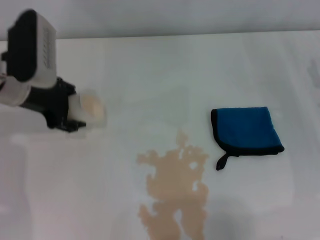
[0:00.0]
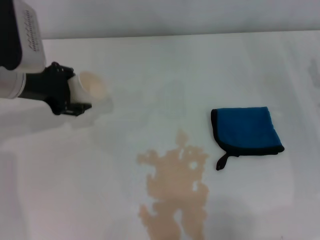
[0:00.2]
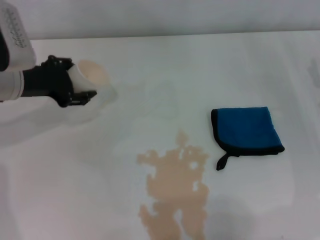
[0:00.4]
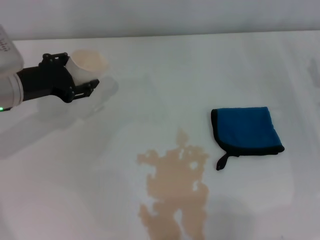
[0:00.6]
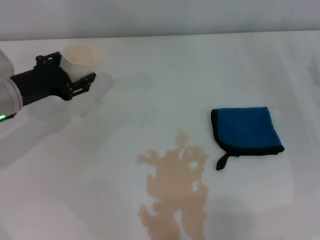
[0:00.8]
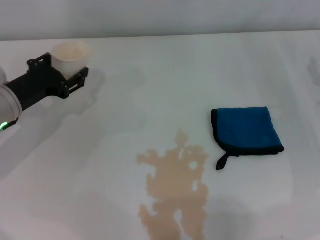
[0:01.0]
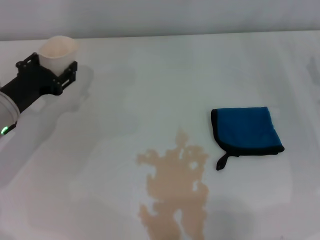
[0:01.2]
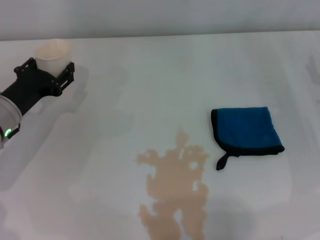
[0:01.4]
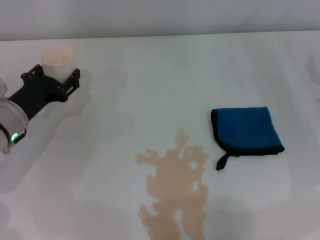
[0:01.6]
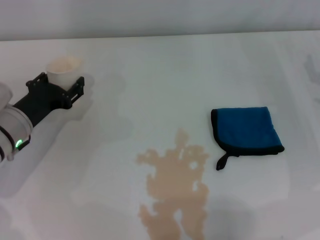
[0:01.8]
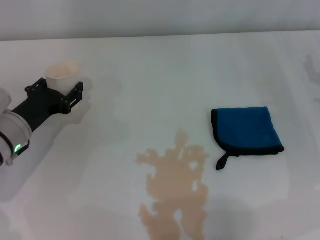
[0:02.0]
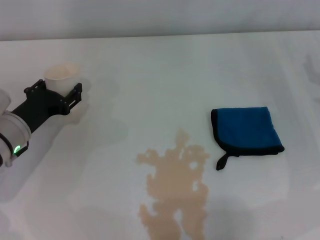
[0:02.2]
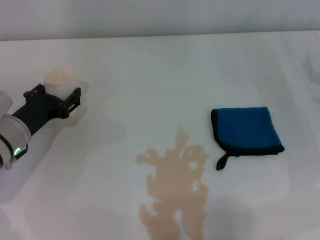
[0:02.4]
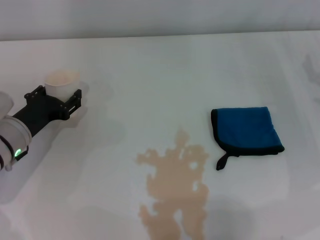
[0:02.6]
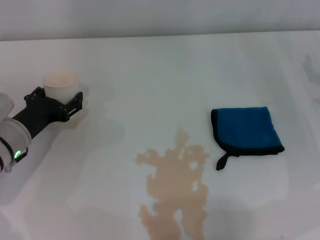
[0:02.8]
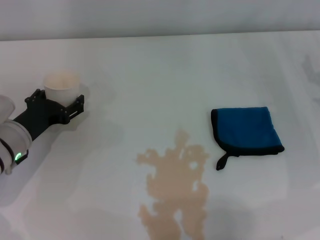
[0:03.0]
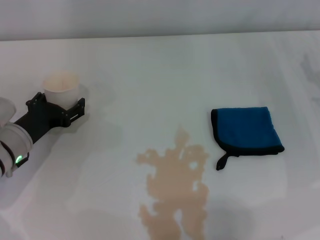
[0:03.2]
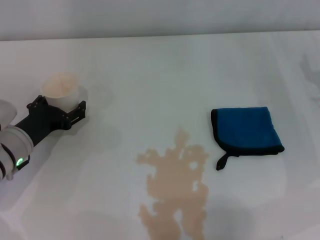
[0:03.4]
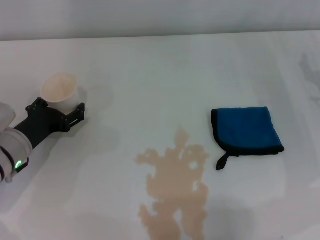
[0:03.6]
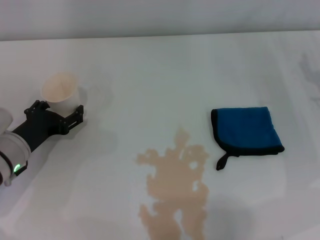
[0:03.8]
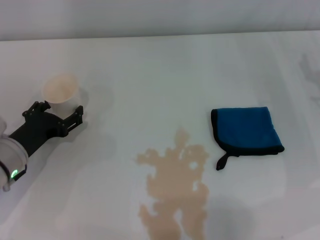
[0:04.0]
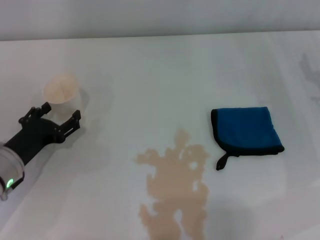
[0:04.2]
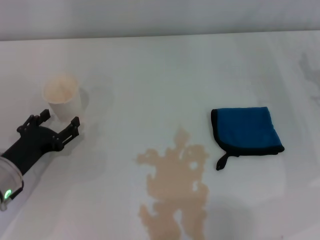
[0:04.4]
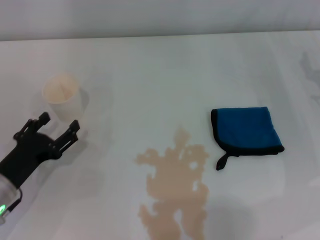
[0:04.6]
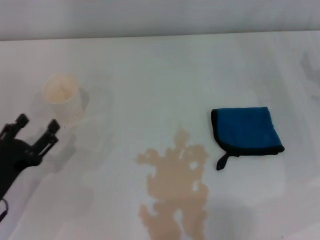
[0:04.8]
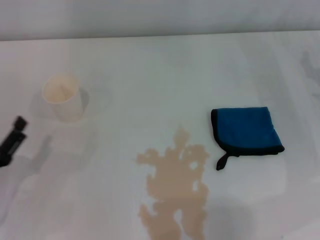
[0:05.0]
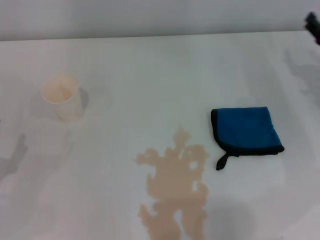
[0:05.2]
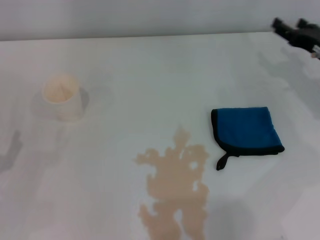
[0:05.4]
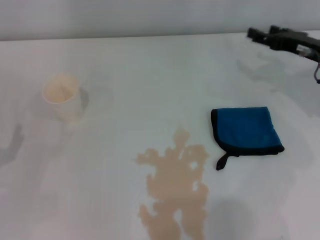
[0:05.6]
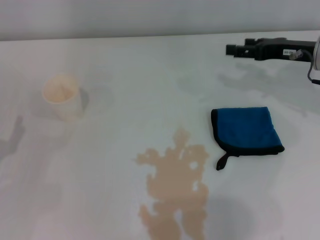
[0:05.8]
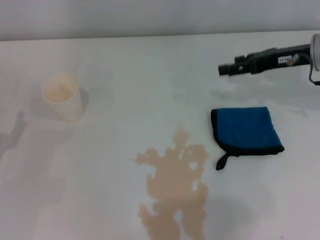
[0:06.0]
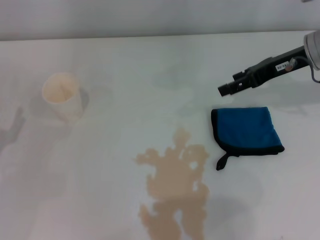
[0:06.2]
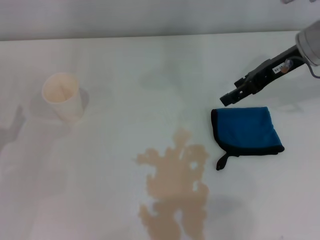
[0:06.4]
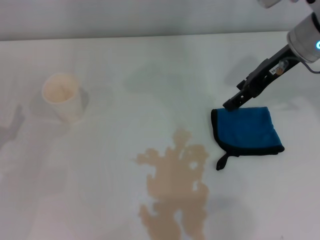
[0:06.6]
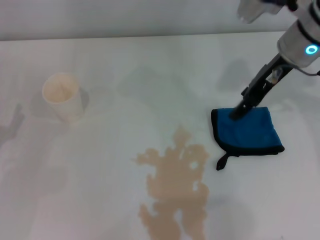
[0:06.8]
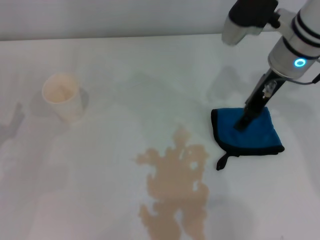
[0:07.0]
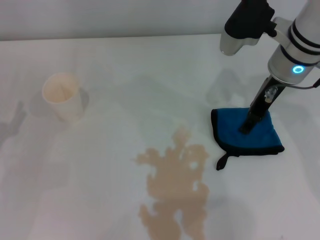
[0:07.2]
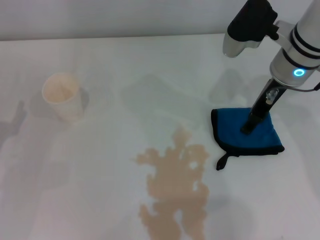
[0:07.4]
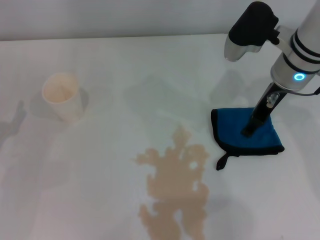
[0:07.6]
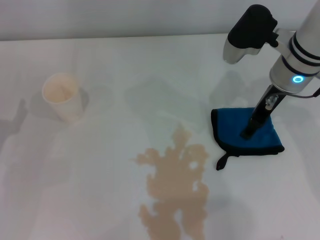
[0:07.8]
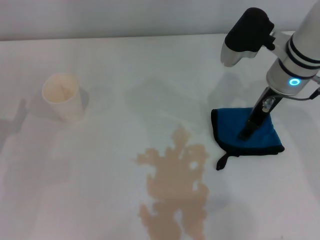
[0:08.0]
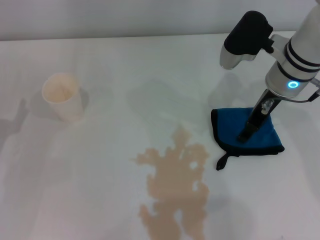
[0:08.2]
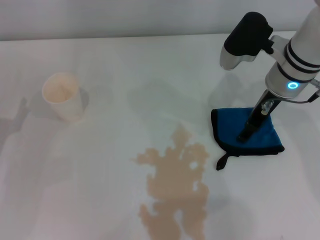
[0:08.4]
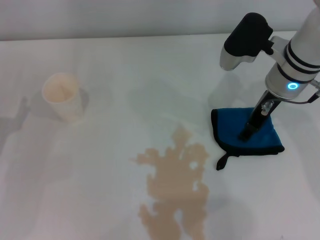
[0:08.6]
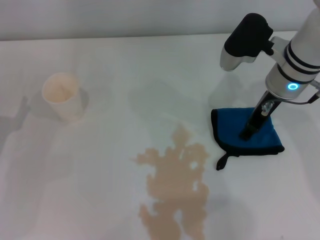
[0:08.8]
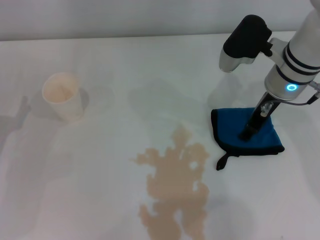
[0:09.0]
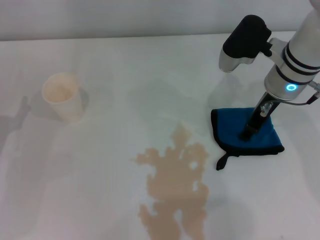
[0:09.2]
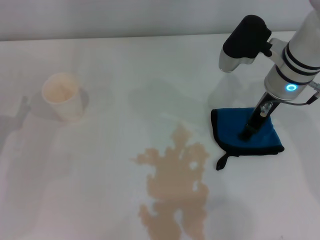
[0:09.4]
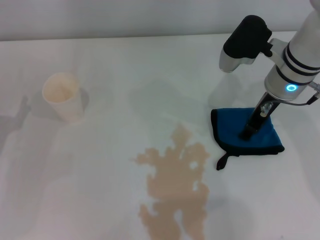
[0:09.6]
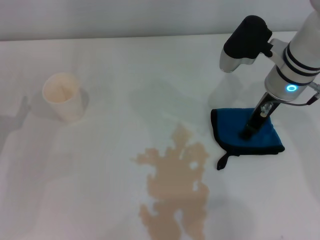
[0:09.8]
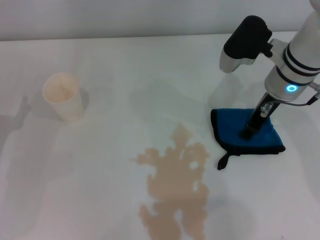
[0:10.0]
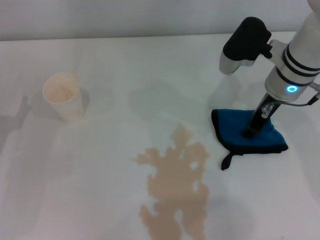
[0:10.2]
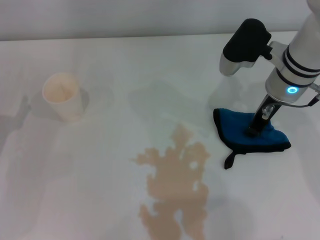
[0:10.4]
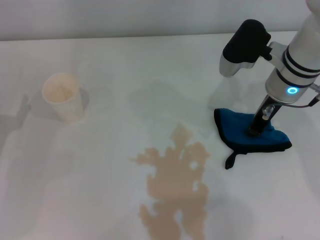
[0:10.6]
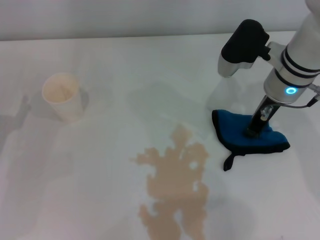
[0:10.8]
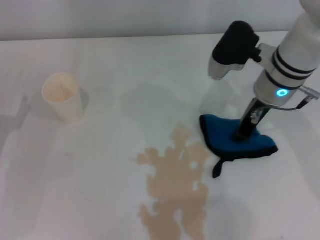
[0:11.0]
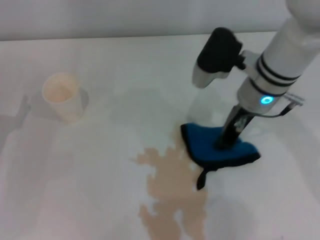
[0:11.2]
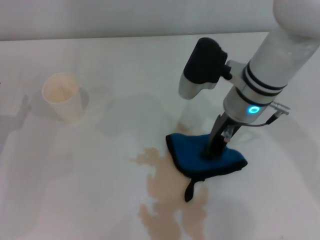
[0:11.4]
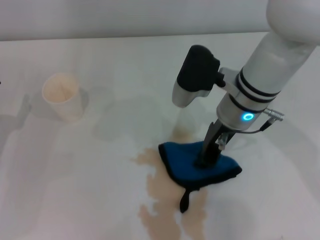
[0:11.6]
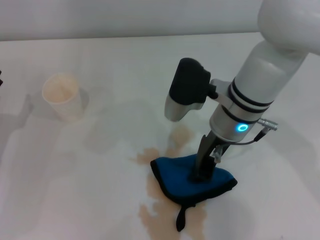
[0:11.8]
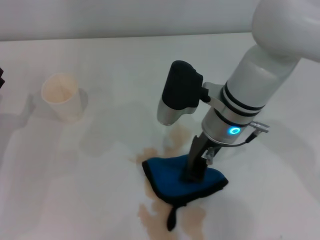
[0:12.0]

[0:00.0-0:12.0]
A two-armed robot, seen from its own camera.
Step, 0:00.0 to 0:04.0: Stand the paper cup upright with the left gripper.
Step, 0:04.4 to 0:10.6: Grasp the rag with the right gripper.
0:00.0 to 0:01.6: The left gripper is displaced downward by approximately 10 cm.
0:01.6 to 0:03.0: The left gripper opens up.
0:03.0 to 0:04.4: The left gripper shifts approximately 5 cm backward, and opens its fingers.
0:04.4 to 0:06.0: The right gripper goes some 10 cm upward and forward, while the left gripper shifts about 5 cm to the left.
0:06.0 to 0:07.6: The right gripper shifts some 10 cm to the left.
0:07.6 to 0:09.0: The grippers make only small movements.
0:09.0 to 0:10.4: The two grippers keep their place.
0:10.4 to 0:12.0: The right gripper is displaced to the left by some 10 cm.

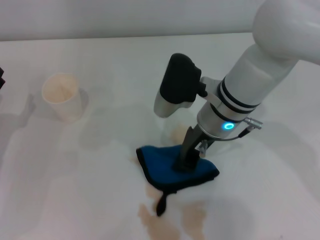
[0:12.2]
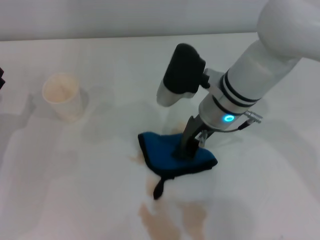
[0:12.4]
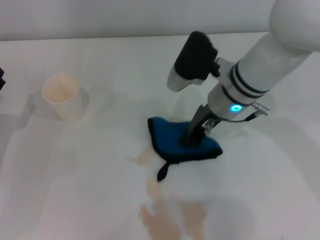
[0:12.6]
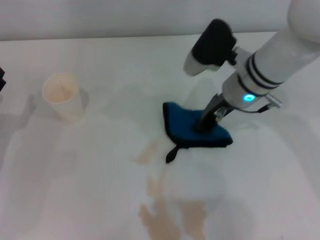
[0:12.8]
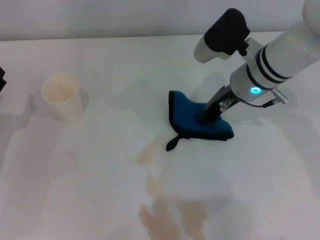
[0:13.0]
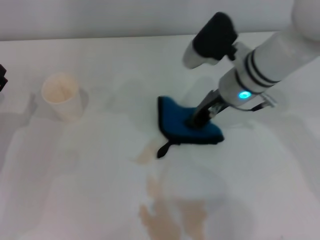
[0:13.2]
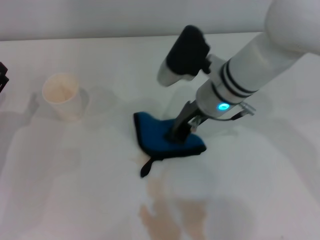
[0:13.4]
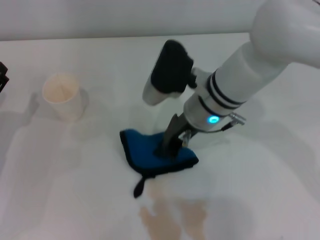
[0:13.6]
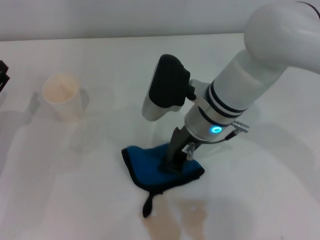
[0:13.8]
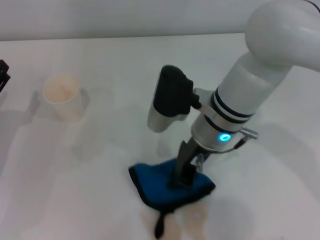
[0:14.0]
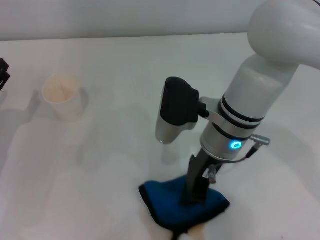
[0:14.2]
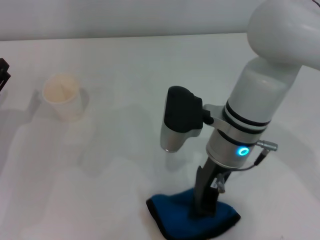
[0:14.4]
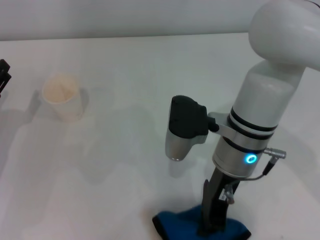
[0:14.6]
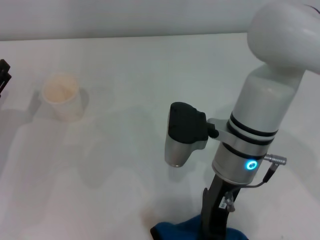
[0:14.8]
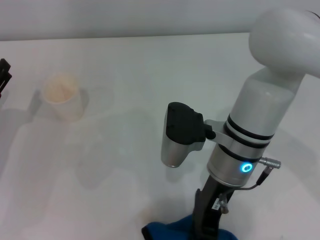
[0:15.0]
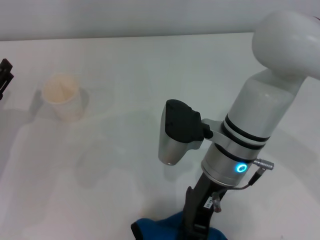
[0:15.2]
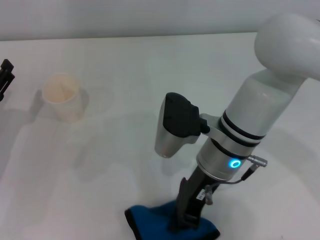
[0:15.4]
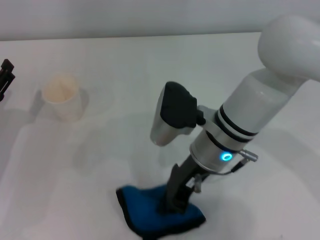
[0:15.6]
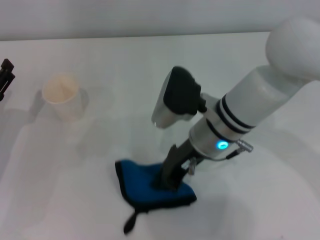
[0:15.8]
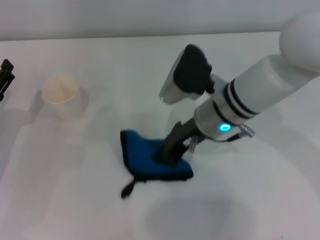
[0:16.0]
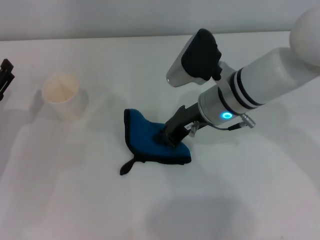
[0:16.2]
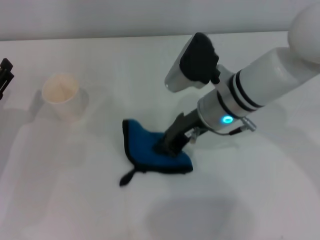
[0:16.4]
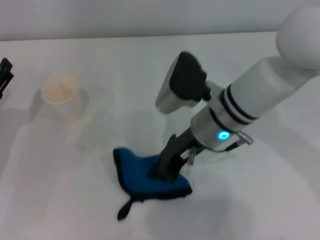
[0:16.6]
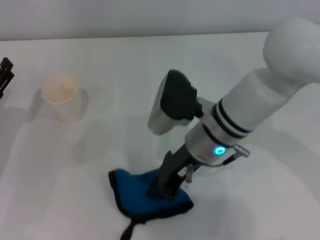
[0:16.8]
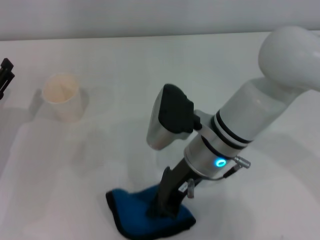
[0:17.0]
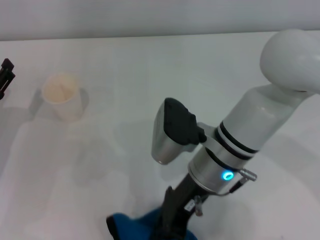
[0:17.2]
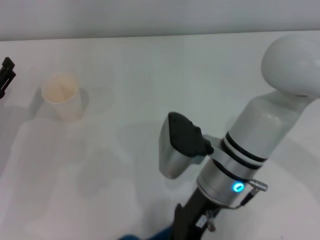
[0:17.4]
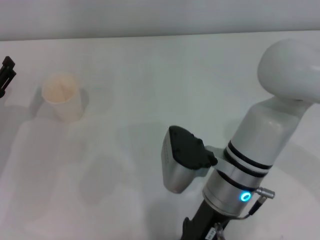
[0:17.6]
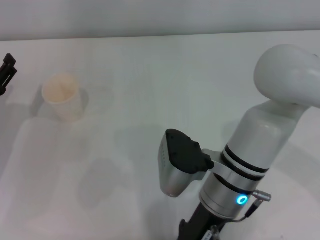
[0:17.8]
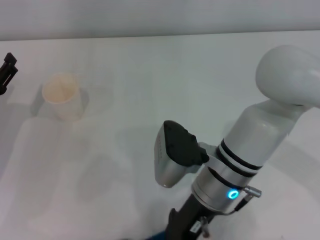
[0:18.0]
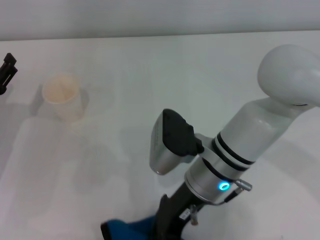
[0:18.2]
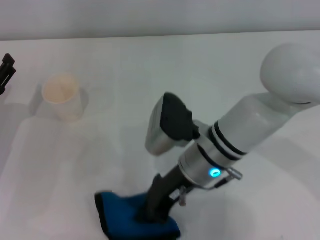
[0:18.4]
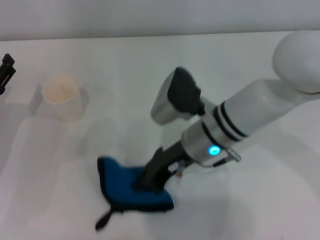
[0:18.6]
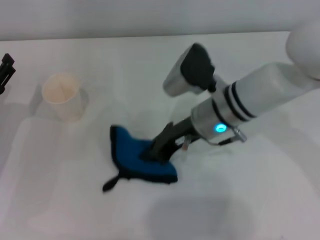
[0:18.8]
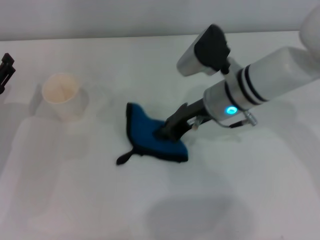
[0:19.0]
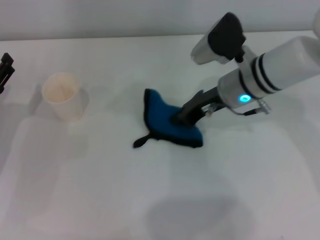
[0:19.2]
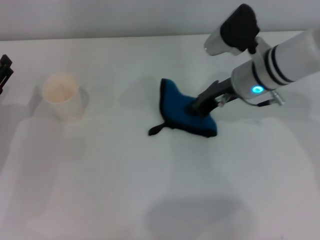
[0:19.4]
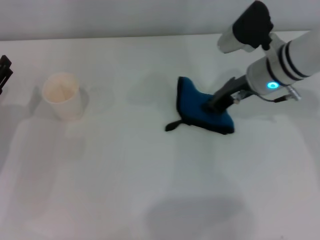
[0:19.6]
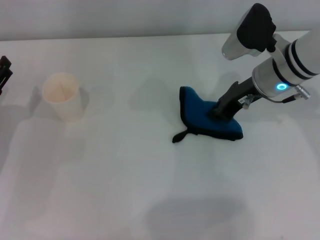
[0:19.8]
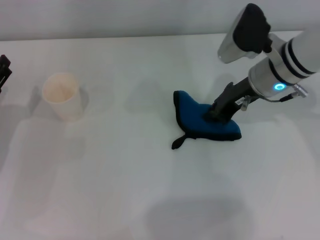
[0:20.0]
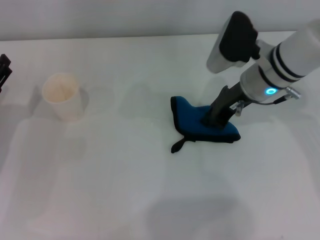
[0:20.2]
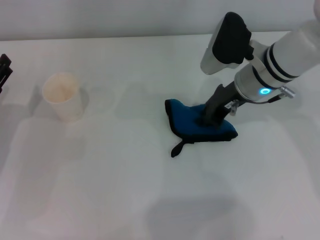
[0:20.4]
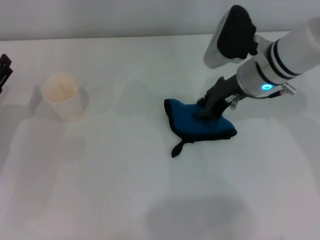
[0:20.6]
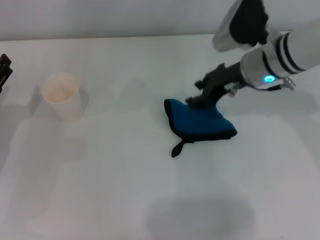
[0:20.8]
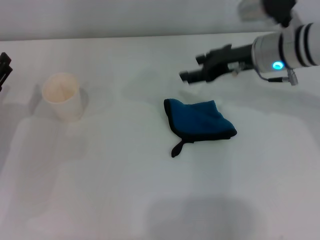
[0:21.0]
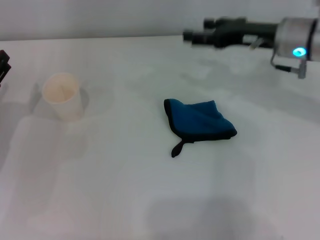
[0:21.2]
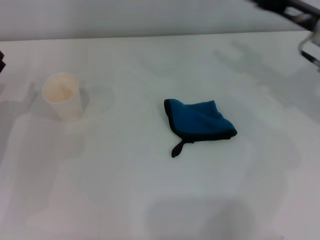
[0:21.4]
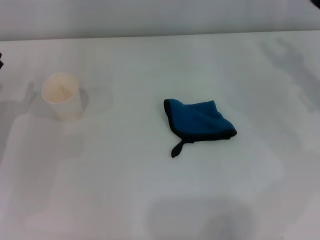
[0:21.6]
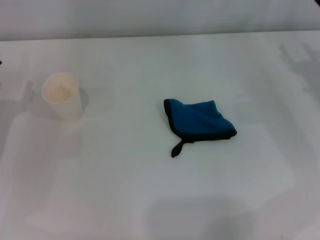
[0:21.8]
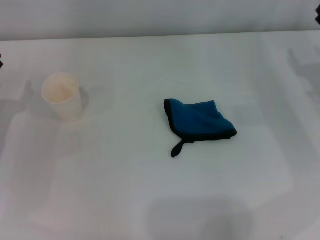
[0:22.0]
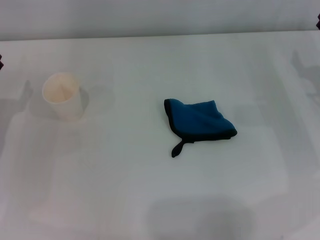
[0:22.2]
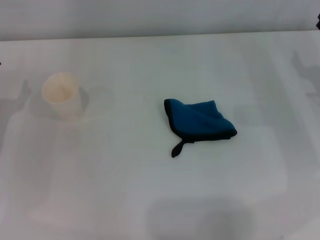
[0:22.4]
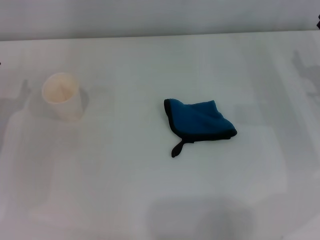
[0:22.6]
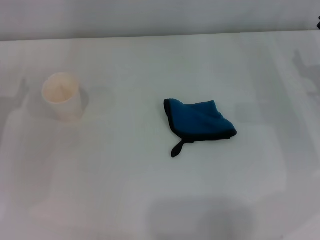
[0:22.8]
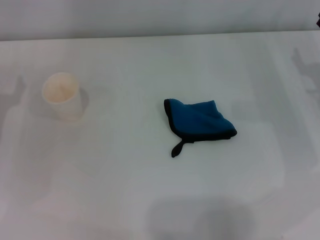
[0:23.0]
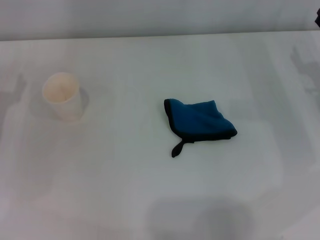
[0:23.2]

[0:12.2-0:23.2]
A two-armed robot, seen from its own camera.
Step, 0:12.2 to 0:19.6: Wipe the stains off the table with the right gripper.
Step, 0:19.8 to 0:20.4: Place the rag on the table with the right gripper.
0:12.2 to 0:13.8: The right gripper reaches some 5 cm to the right, then returns.
0:17.0 to 0:18.4: The grippers make only small movements.
0:18.4 to 0:20.0: The right gripper moves to the right and forward, some 15 cm.
0:20.0 to 0:21.6: The right gripper is displaced to the right by some 15 cm, and opens its fingers.
